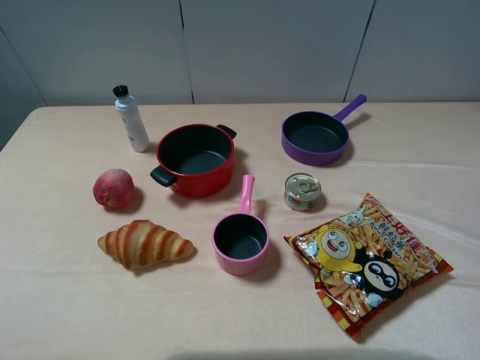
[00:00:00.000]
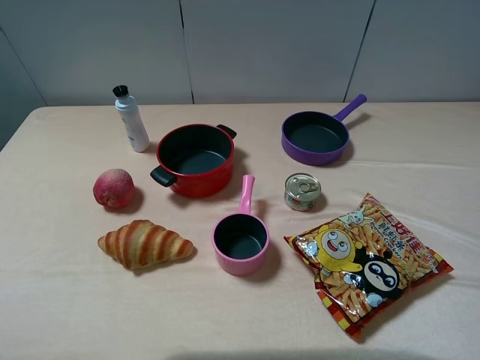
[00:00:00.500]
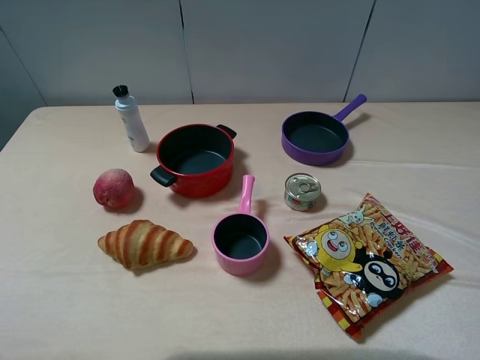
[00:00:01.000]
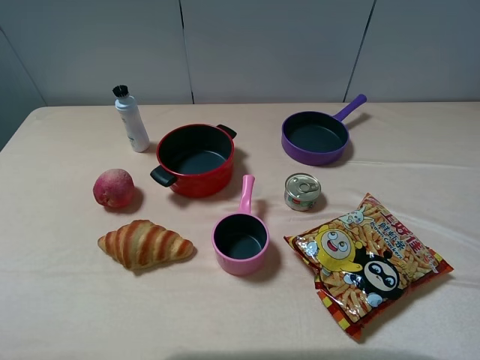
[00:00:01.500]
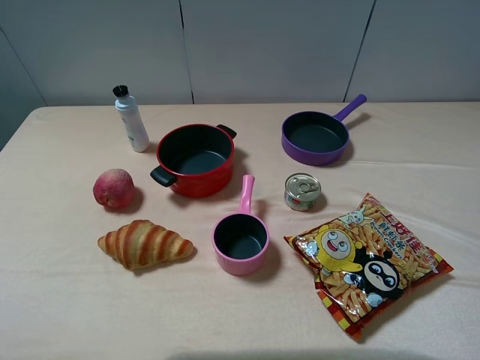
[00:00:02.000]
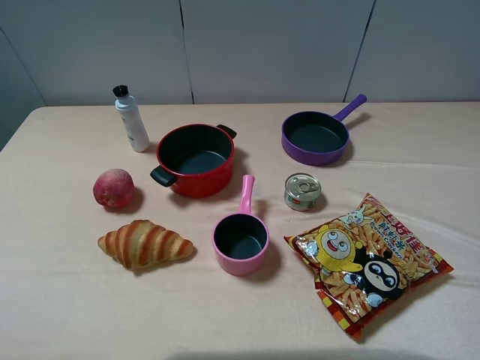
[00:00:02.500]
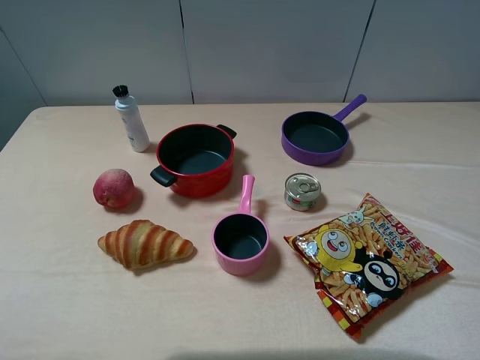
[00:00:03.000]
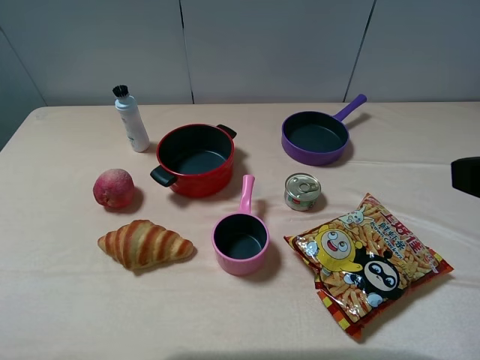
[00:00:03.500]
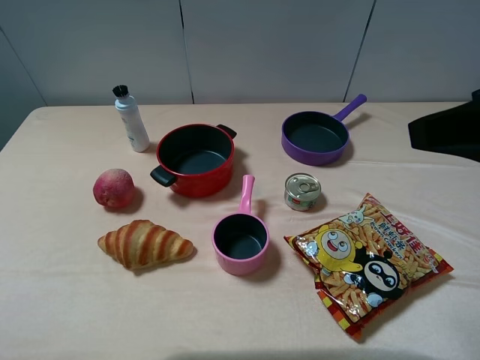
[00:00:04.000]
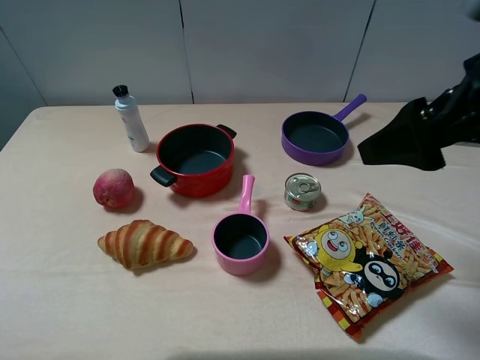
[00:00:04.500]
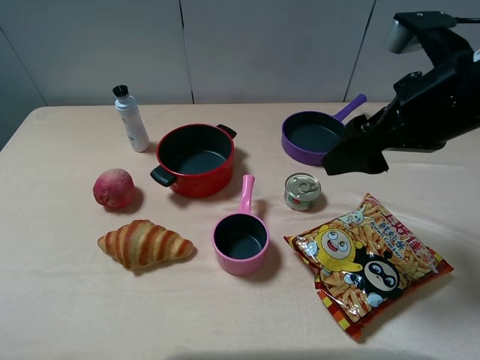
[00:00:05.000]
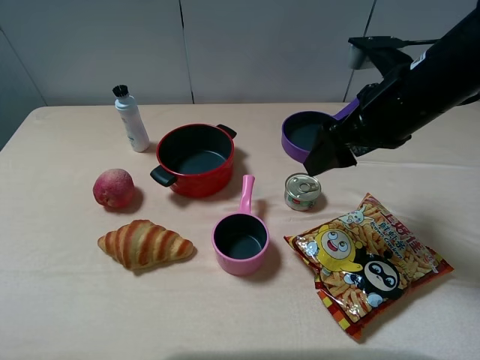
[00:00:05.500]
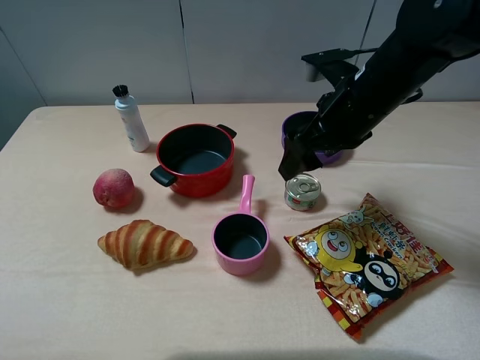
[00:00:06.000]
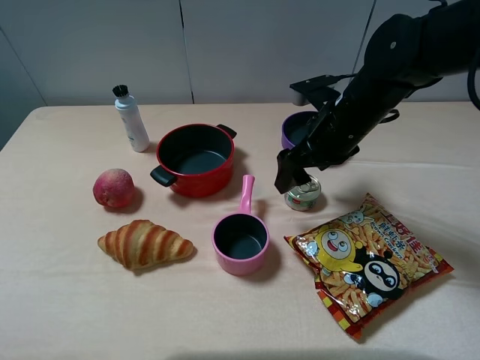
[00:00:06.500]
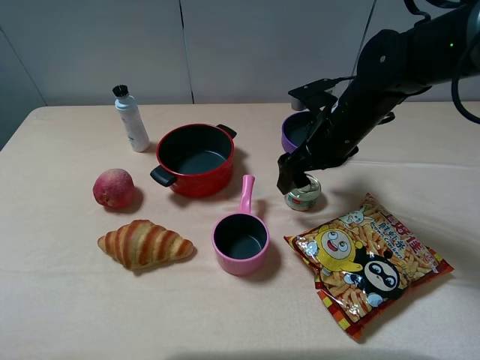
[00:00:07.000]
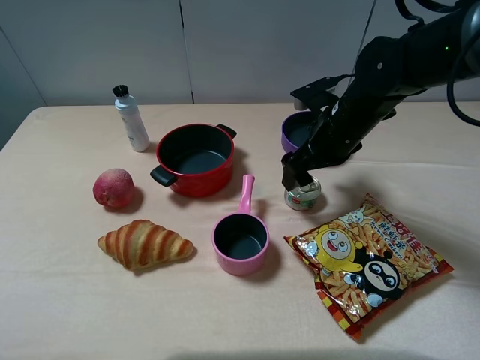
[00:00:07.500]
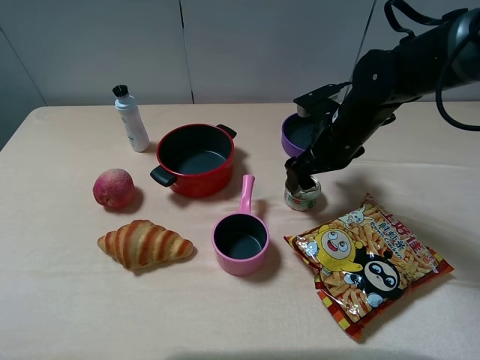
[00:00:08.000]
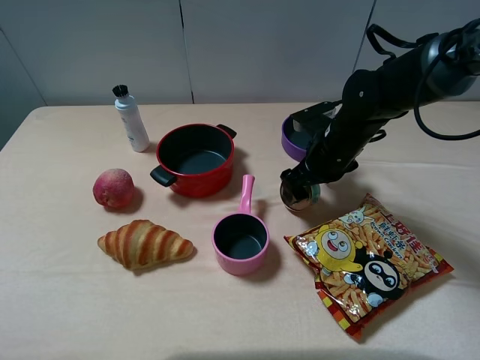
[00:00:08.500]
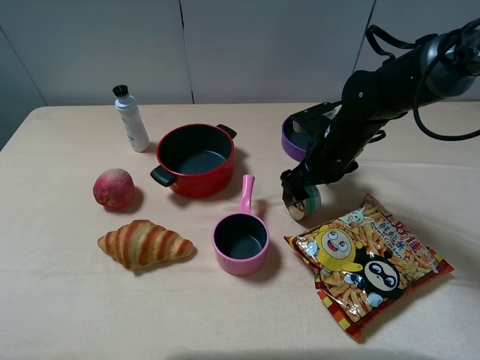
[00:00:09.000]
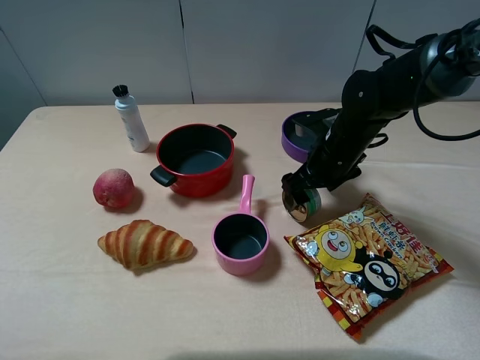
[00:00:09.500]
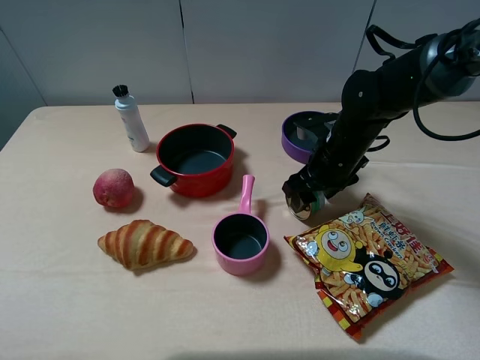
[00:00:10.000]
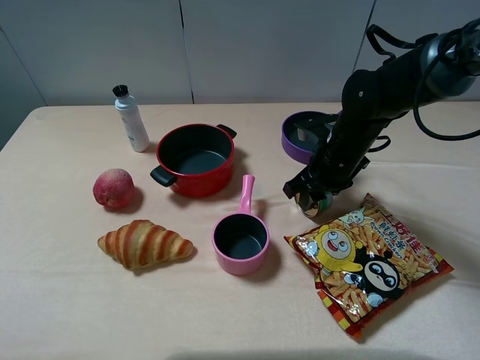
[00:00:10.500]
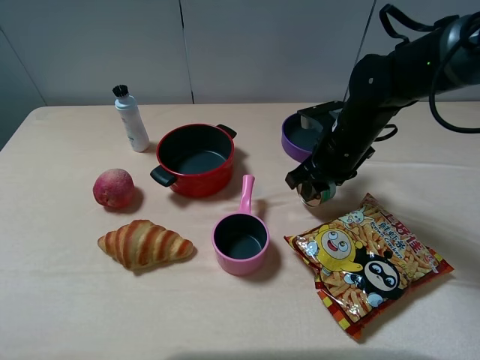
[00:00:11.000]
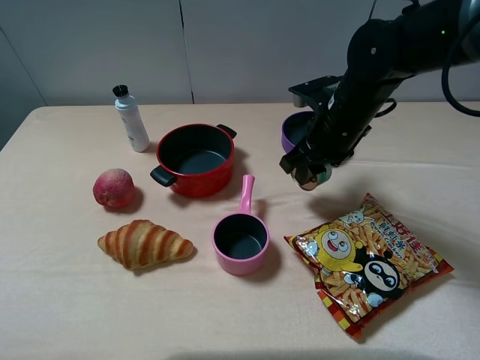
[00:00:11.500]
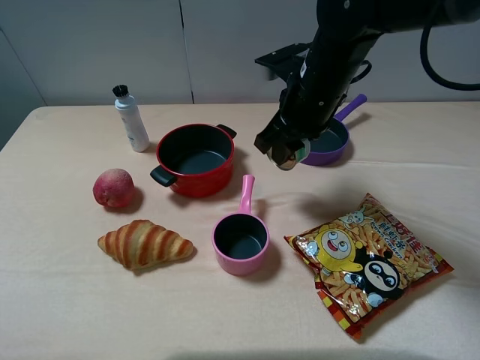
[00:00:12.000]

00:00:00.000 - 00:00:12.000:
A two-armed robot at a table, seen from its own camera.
Task of the whole recording: pick up an item with a gripper and place it in a random container on the table.
Step, 00:00:00.000 - 00:00:10.000: Grasp the tin with the right gripper.
00:00:00.000 - 00:00:02.000: The two grippers keep their place.
00:00:02.000 - 00:00:04.000: The right gripper is displaced forward, to the left and upward by some 15 cm.
00:00:04.000 - 00:00:06.000: The right gripper travels forward, downward and to the left by about 25 cm.
00:00:06.000 - 00:00:08.000: The right gripper moves downward, approximately 10 cm.
00:00:08.000 - 00:00:10.000: The right gripper closes up.
00:00:10.000 - 00:00:12.000: The right gripper heads upward and to the left, covering some 10 cm, and closes.

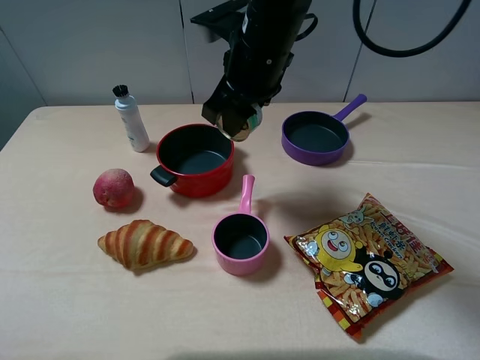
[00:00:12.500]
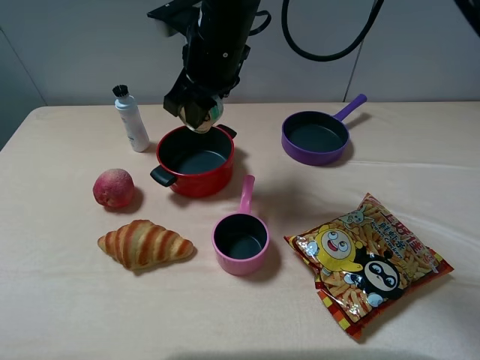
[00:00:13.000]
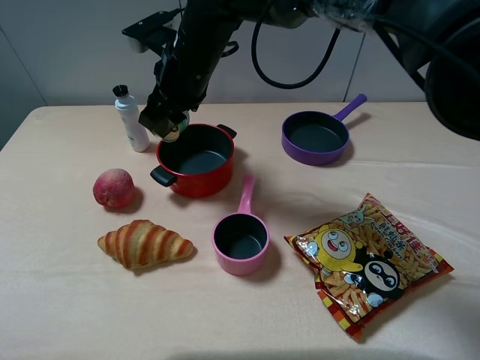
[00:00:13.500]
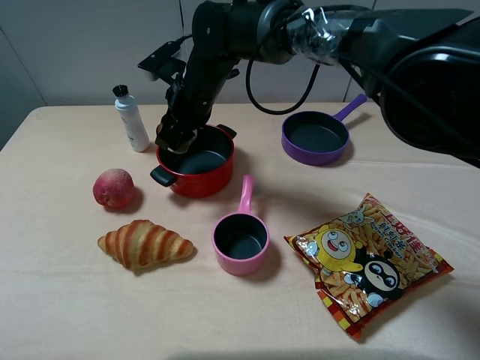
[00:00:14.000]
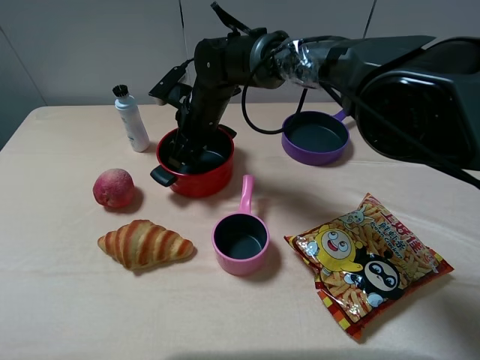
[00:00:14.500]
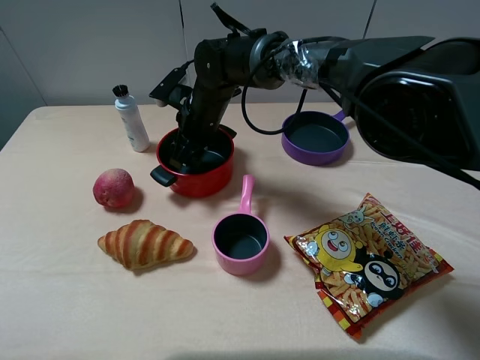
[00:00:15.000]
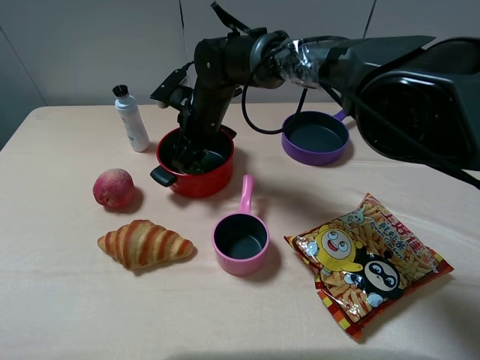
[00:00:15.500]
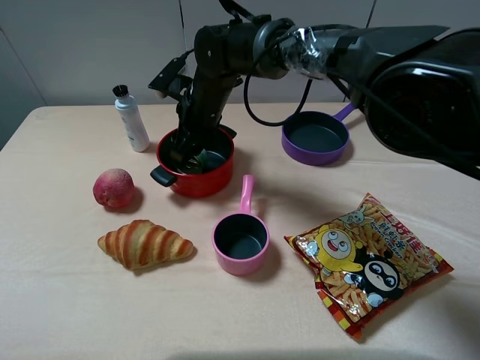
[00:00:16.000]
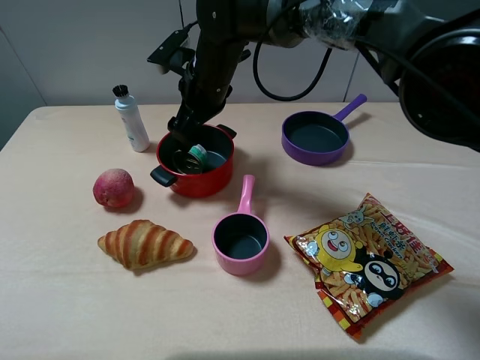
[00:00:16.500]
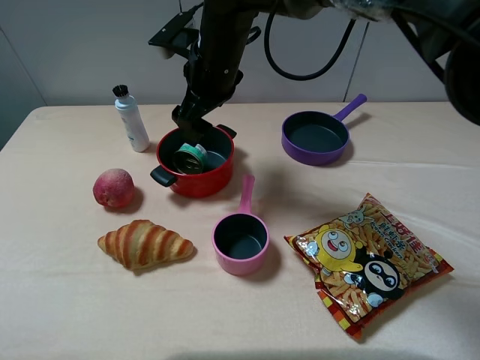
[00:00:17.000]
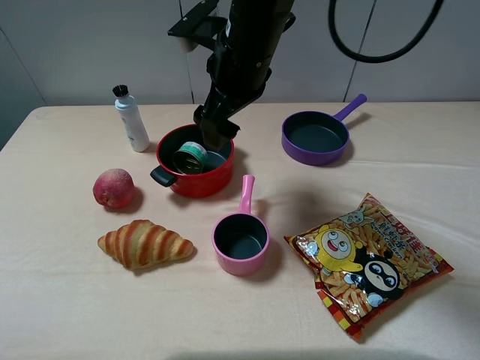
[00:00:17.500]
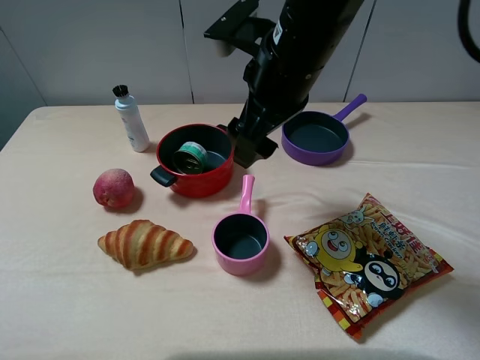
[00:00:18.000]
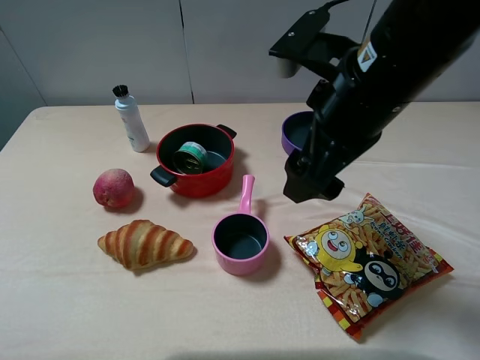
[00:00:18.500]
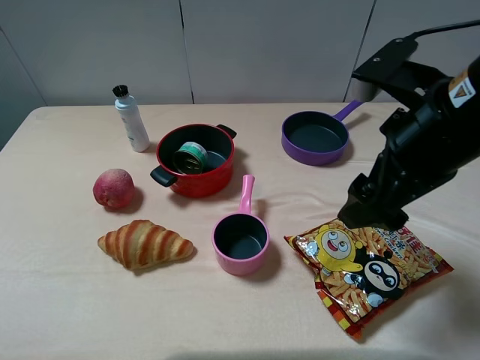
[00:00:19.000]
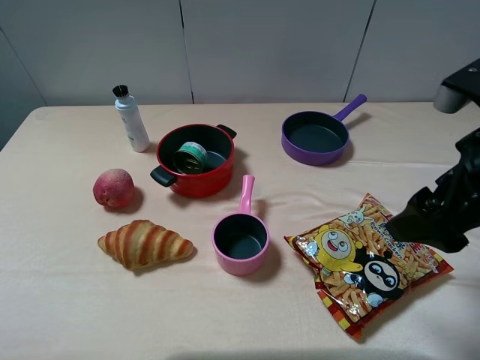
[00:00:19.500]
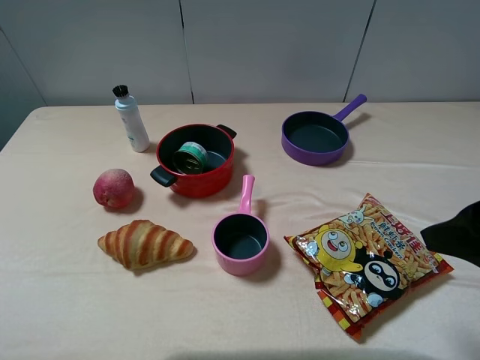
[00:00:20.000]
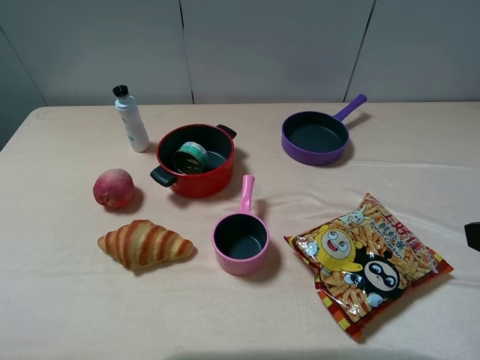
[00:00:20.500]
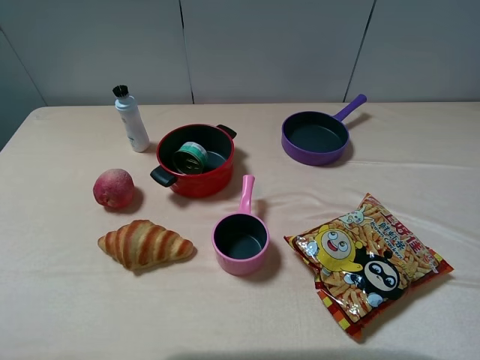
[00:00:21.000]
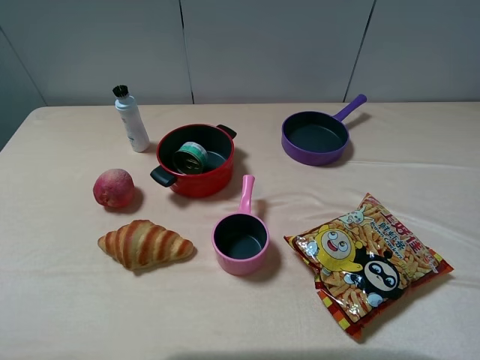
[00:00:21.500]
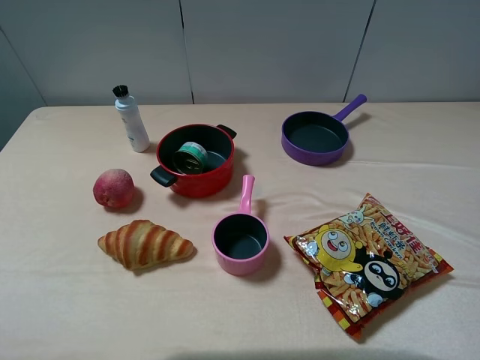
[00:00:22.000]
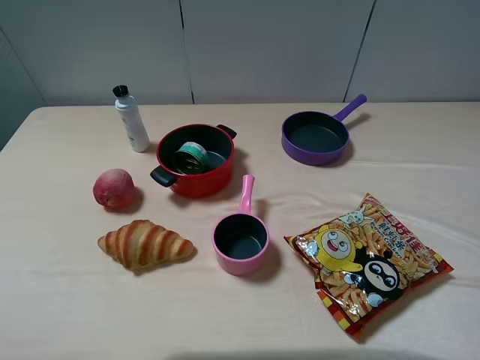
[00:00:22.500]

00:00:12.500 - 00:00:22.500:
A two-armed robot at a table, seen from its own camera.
Task of the whole recording: pick up an item with a gripper and place it in a random container on the table.
Step, 00:00:12.500 - 00:00:16.500: Place the tin into the red pot with the right gripper.
00:00:12.500 - 00:00:14.500: The right gripper moves downward, to the left and forward, approximately 15 cm.
00:00:14.500 - 00:00:16.500: The right gripper shifts about 5 cm upward, and opens up.
00:00:16.500 - 00:00:18.500: The right gripper goes roughly 25 cm backward, to the right and upward.
00:00:18.500 - 00:00:20.500: The right gripper goes some 20 cm to the right and backward.
